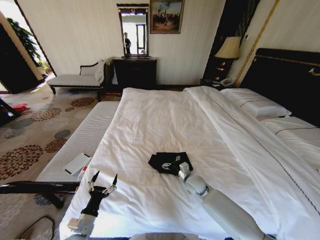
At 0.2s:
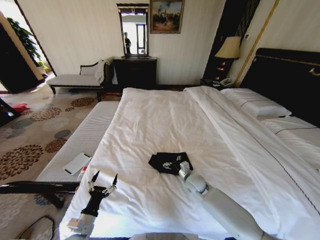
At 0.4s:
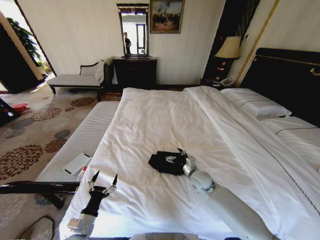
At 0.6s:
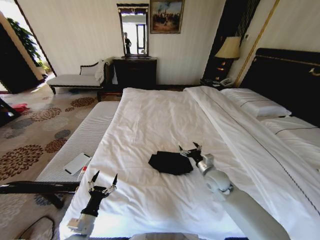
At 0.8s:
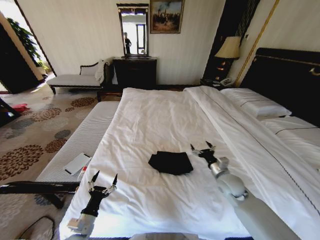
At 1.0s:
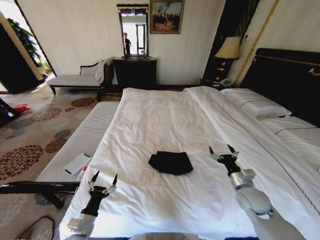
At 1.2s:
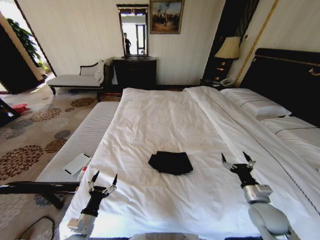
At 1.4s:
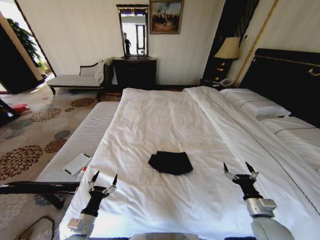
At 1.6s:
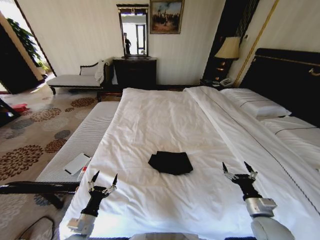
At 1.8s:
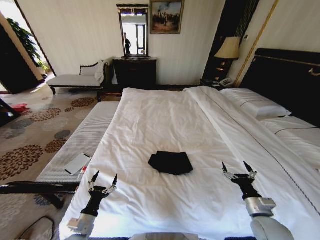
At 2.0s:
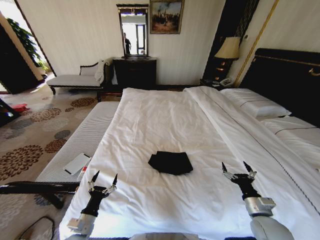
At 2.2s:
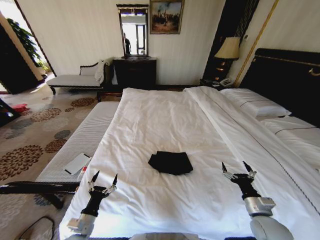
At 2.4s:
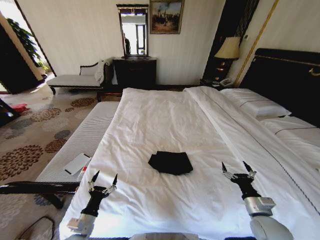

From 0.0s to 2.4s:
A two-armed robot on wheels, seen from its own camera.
Task of the whole recording: Fold the clothes on the bed.
From 0.0s to 1.2s: The right gripper is displaced to the right and backward by roughly 25 cm.
From 1.2s to 2.4s: The grippers move only a little.
